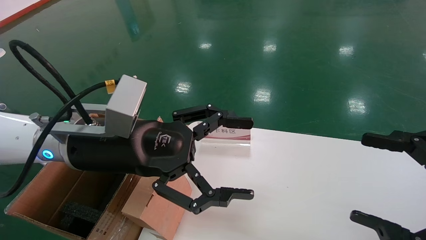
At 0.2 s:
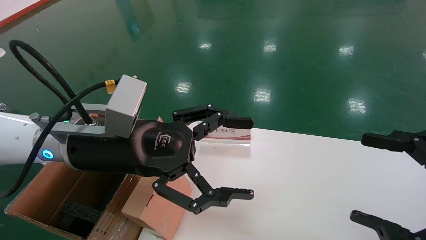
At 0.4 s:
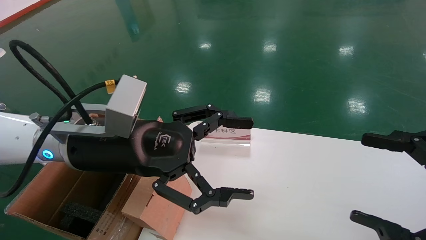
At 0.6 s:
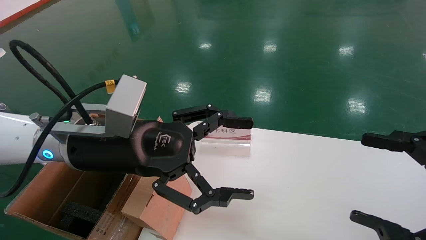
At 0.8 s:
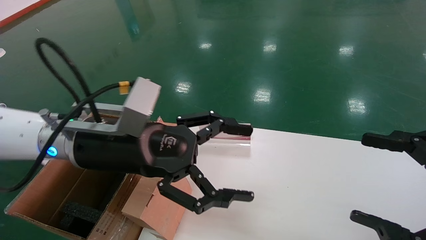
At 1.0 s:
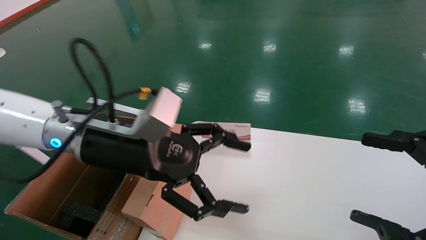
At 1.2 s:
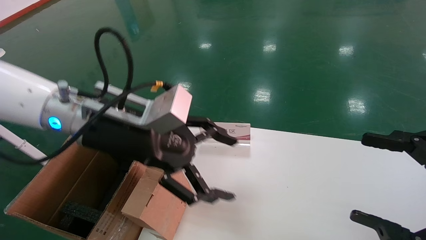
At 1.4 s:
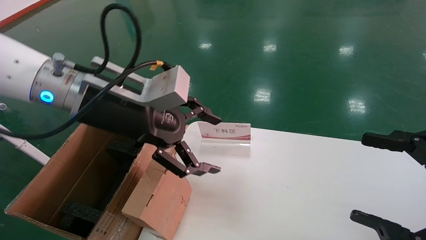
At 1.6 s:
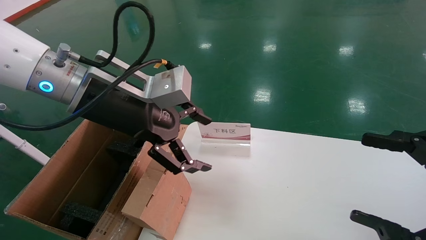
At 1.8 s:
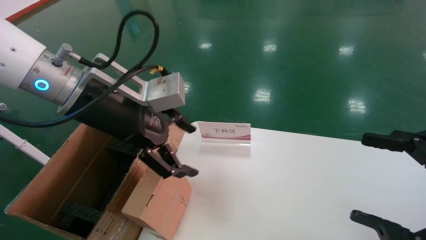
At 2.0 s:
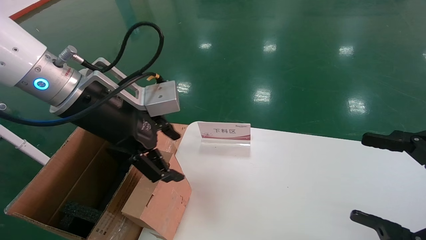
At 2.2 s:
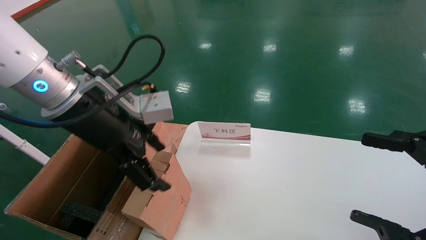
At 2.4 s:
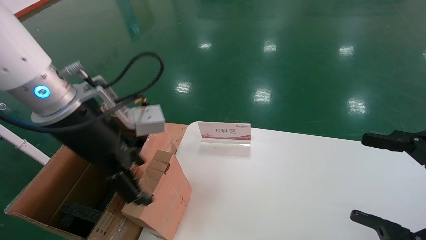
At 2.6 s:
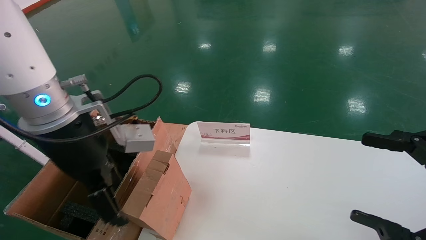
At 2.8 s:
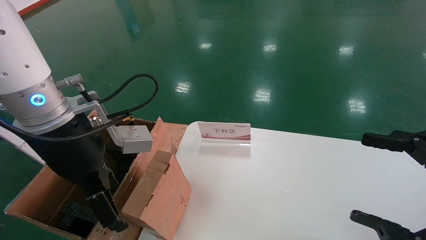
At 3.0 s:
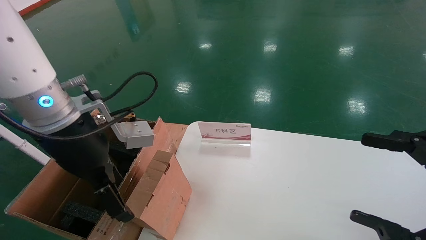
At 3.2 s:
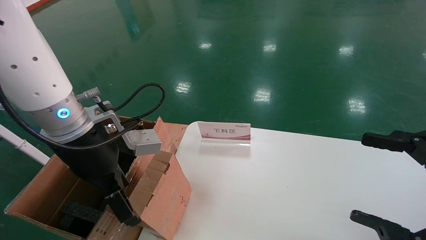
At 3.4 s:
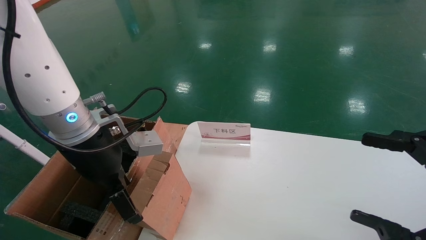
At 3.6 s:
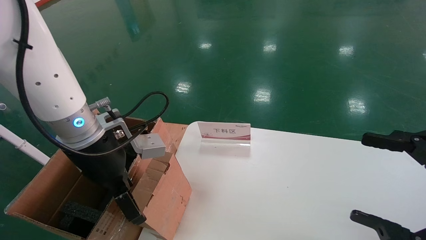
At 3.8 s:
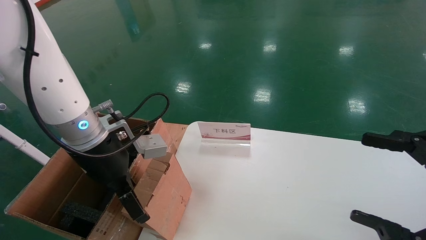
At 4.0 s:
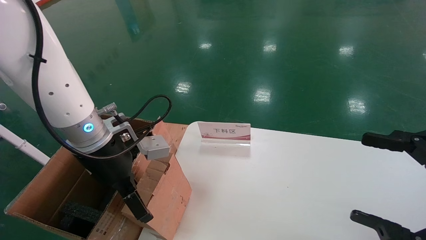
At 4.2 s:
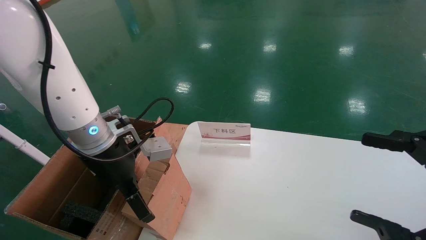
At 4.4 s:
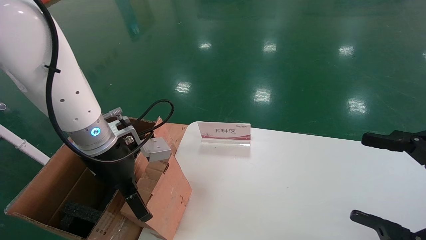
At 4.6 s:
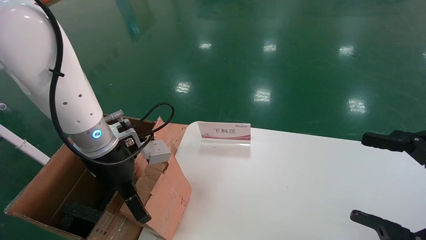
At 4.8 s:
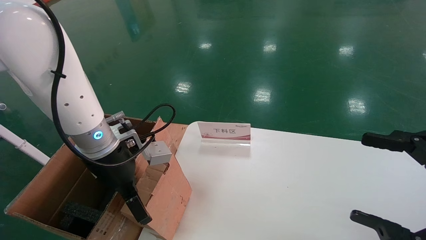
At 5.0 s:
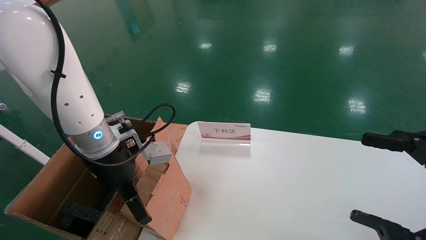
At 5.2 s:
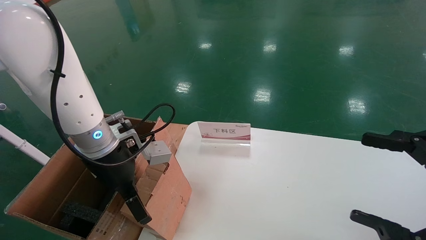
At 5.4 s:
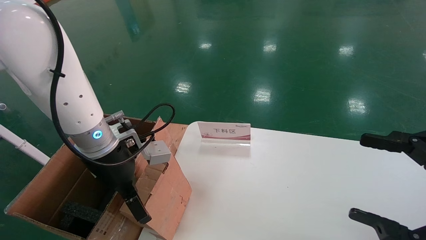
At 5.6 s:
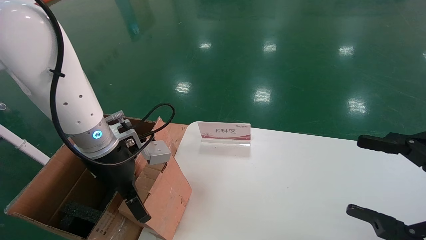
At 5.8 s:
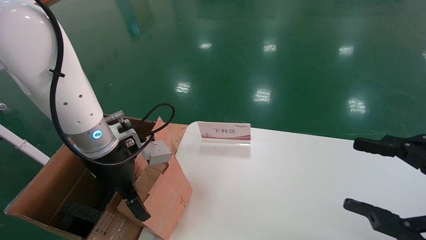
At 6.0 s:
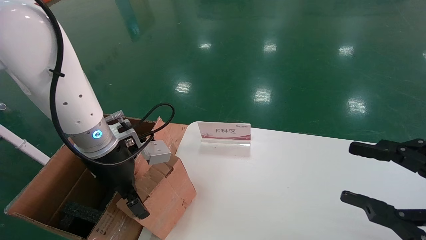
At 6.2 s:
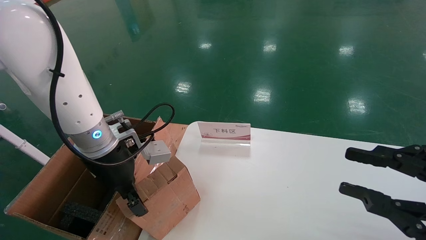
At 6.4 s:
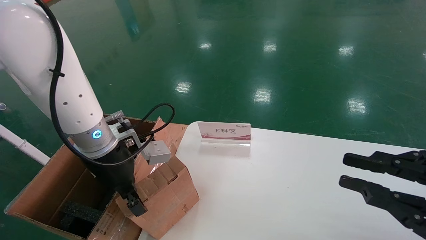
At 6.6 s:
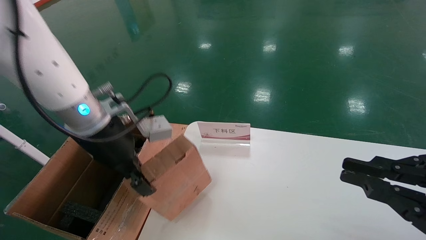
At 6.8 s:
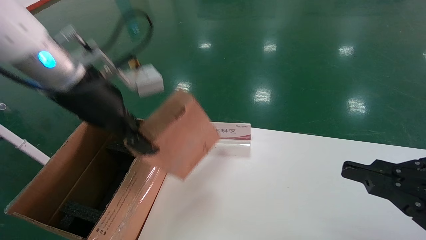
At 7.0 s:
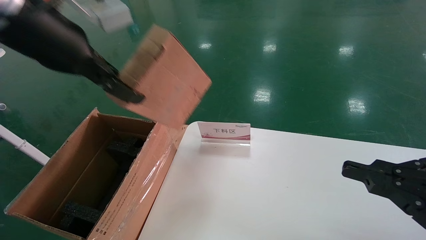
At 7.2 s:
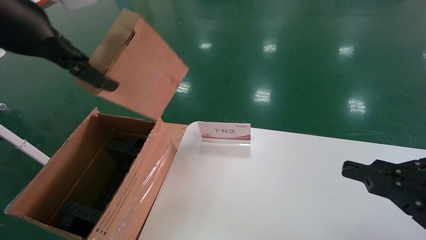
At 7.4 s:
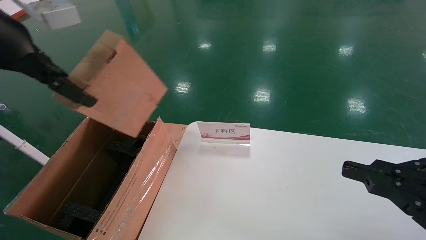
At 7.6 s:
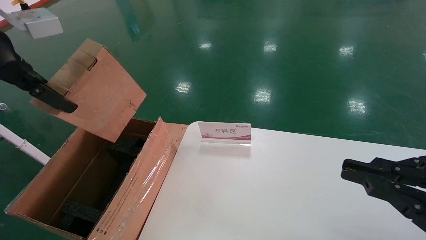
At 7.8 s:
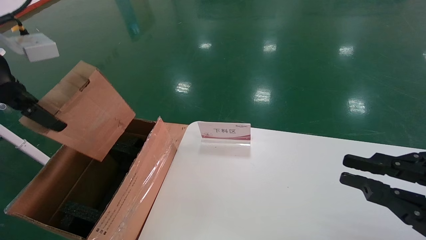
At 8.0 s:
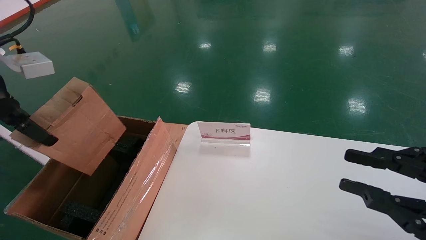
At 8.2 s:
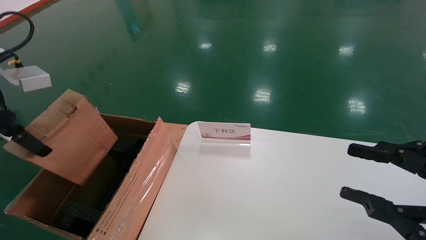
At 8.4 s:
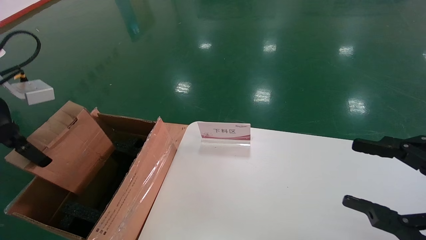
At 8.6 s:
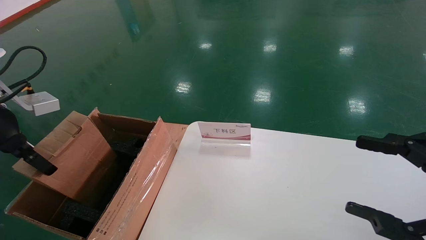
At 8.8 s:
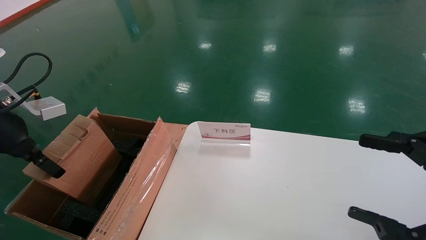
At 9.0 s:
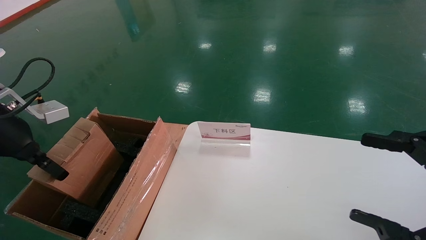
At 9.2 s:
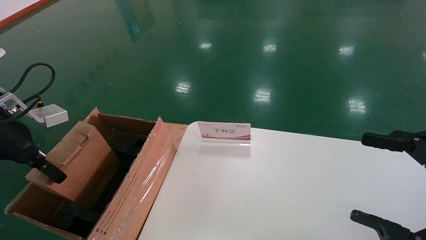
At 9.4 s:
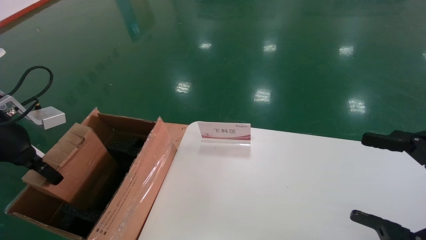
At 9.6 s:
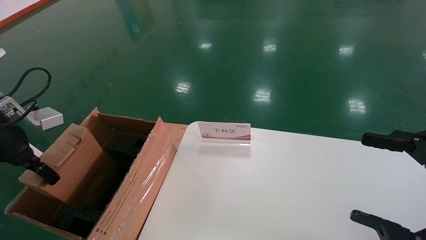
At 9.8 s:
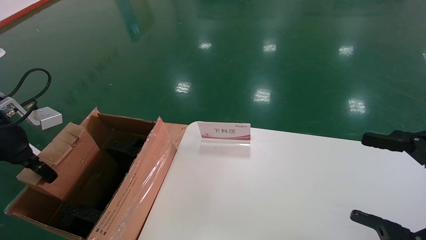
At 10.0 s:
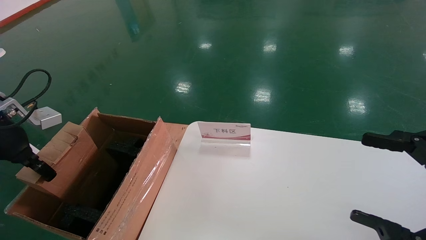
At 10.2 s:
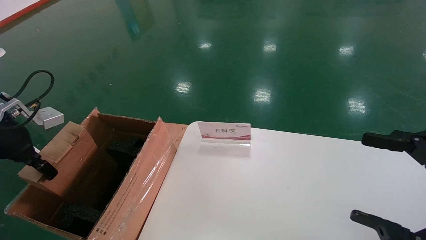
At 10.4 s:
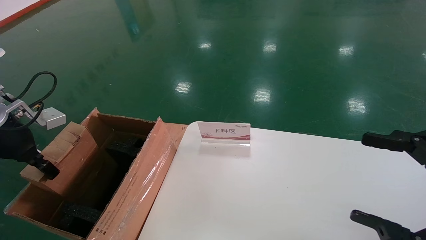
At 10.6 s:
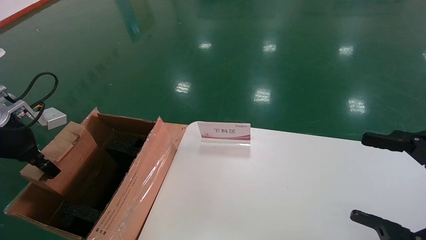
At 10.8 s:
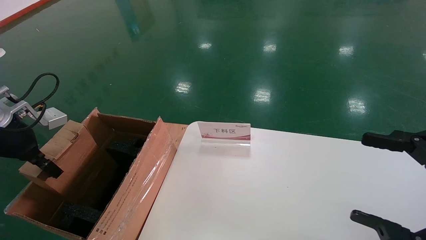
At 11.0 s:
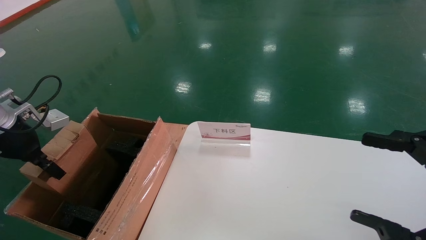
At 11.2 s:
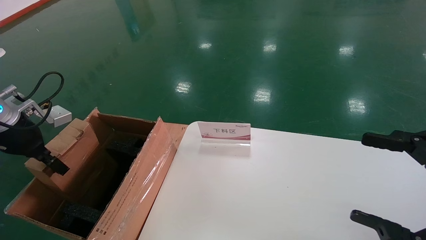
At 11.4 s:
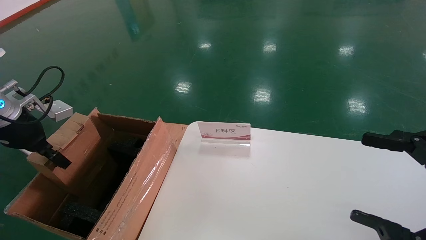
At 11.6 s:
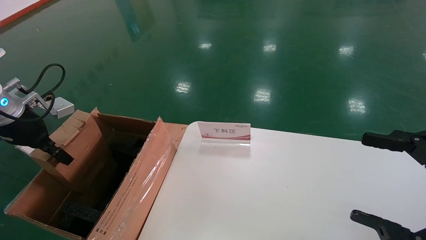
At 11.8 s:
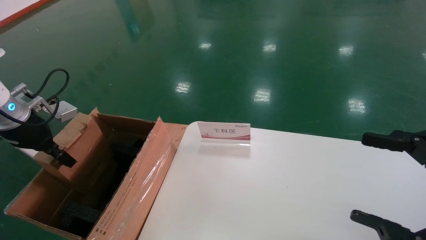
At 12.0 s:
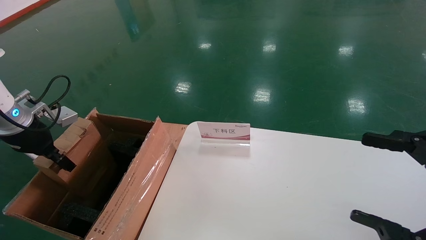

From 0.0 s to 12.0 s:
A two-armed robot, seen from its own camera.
Task of the whole recording: pick up the small cardboard box and load it into the large cardboard box.
Step, from 1.0 s to 6.4 s: Pick up the mouse and power cord box.
From 0.0 s to 1.6 s: The left gripper is displaced upward by roughly 5 cm.
From 3.0 s to 4.4 s: The left gripper heads downward, covering approximately 5 cm.
From 4.4 s to 6.0 s: The left gripper closes. Meanwhile the right gripper closes its fingers.
From 6.0 s to 7.6 s: The left gripper goes approximately 25 cm upward and to the left, and closes its fingers. Meanwhile the right gripper closes its fingers.
From 7.6 s to 9.0 s: The left gripper is displaced downward and to the left by roughly 15 cm. Meanwhile the right gripper opens up.
From 9.0 s to 10.4 s: The left gripper moves some 5 cm.
From 10.4 s to 12.0 s: The left gripper shifts by approximately 5 cm.

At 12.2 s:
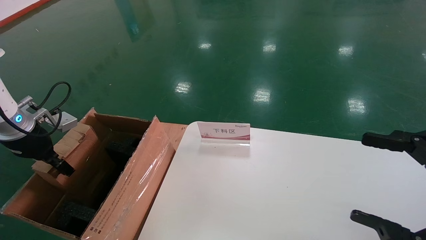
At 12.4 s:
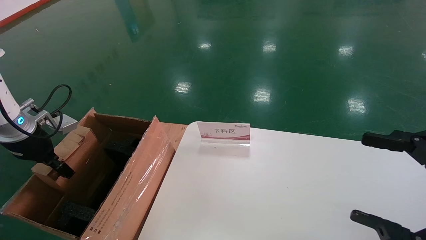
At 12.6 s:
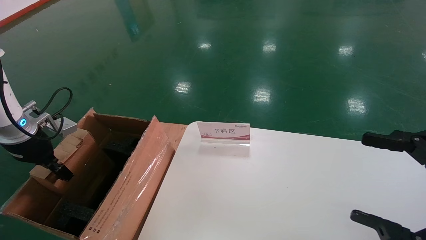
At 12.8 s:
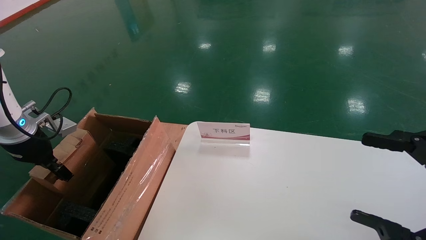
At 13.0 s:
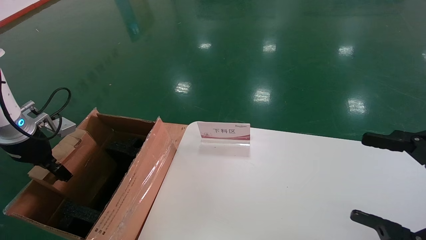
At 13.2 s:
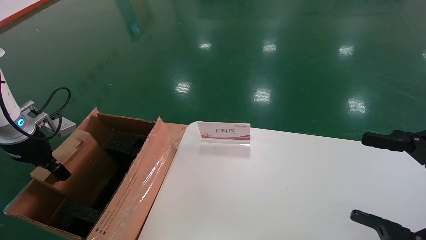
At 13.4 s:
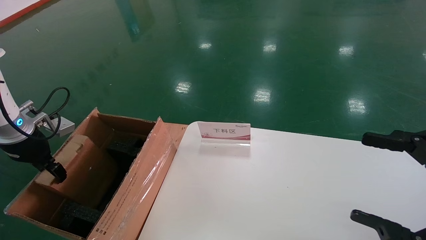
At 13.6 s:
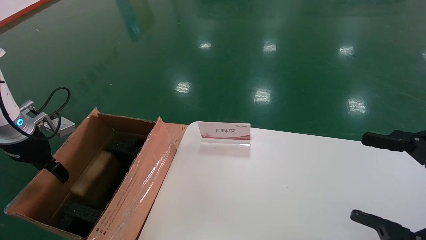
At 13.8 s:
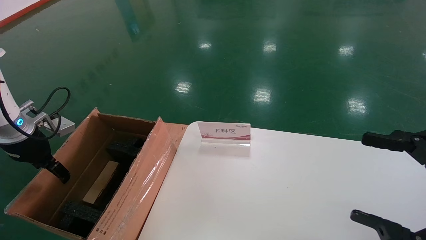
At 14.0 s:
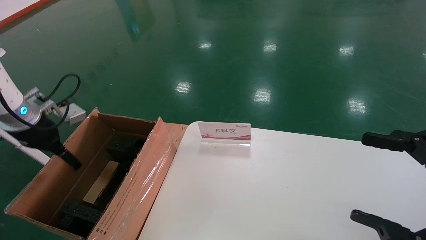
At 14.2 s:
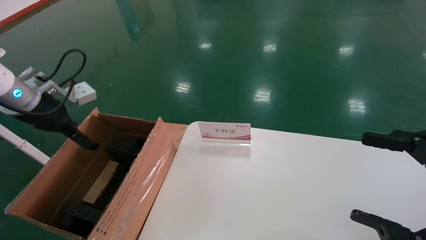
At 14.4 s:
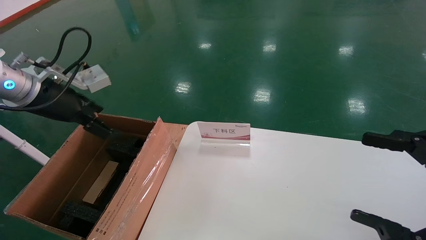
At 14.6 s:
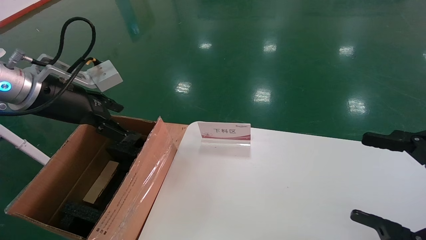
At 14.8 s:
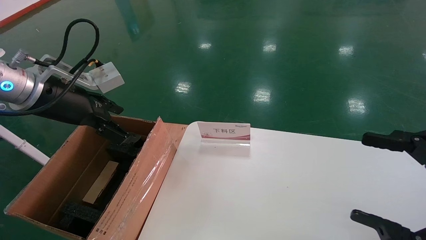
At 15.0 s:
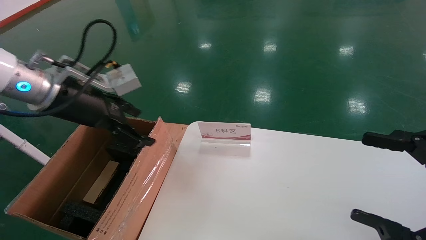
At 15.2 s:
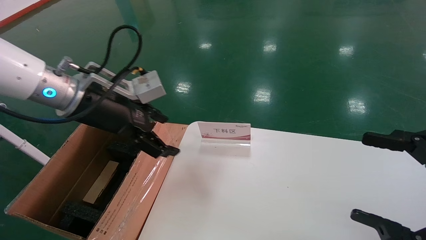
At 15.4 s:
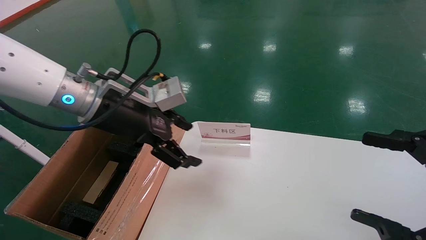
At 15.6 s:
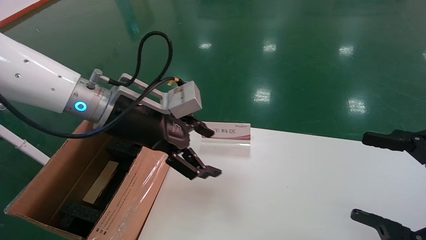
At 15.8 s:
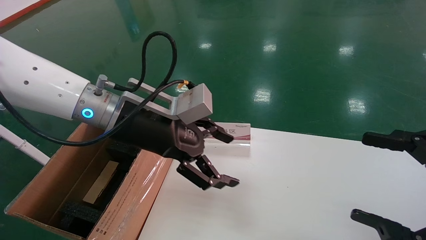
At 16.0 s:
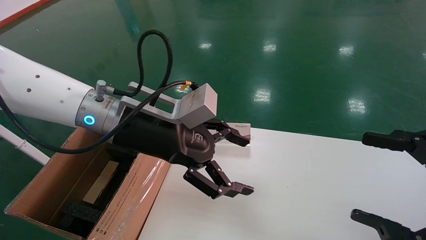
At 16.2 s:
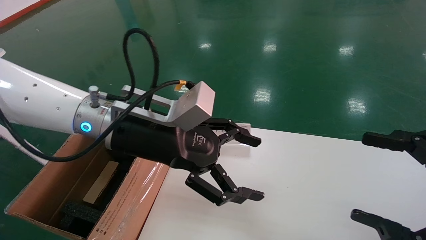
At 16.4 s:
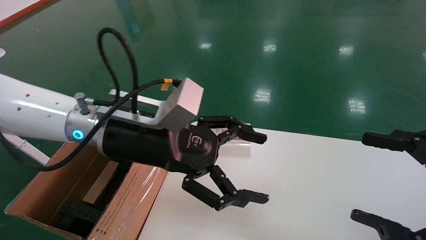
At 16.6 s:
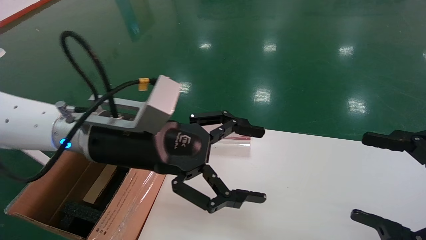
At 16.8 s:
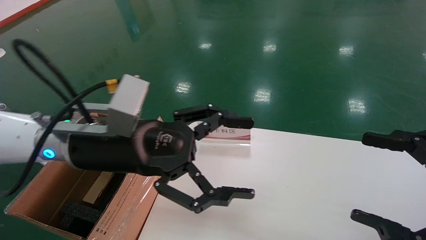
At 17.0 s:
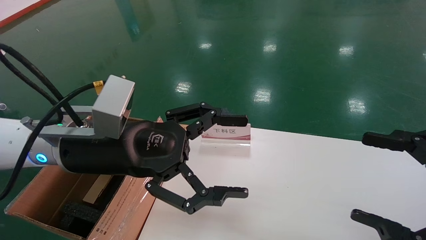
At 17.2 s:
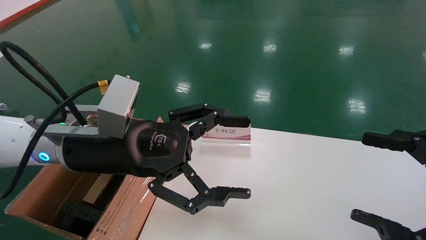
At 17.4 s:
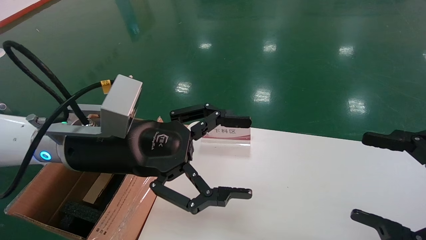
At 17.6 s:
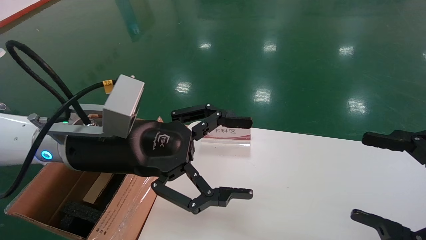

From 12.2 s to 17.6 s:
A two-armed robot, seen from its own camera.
Task of the whole recording: pick up the small cardboard box and load it into the large cardboard box.
From 12.2 s to 13.6 s: The left gripper opens up.
From 13.6 s to 15.0 s: The left gripper goes about 20 cm to the right and upward, and opens its fingers.
From 15.0 s to 16.2 s: The left gripper shifts some 15 cm to the right.
From 16.2 s to 17.6 s: The left gripper changes place by roughly 5 cm.
